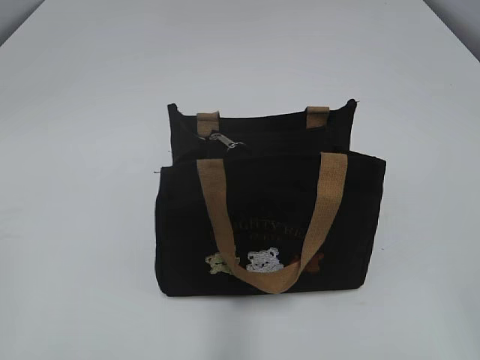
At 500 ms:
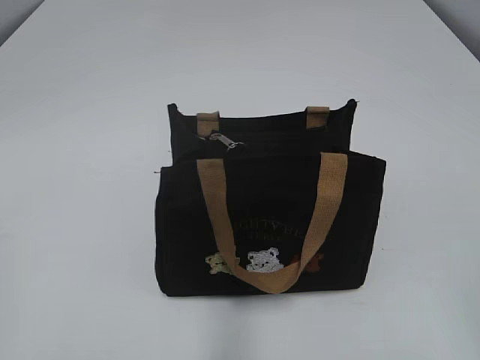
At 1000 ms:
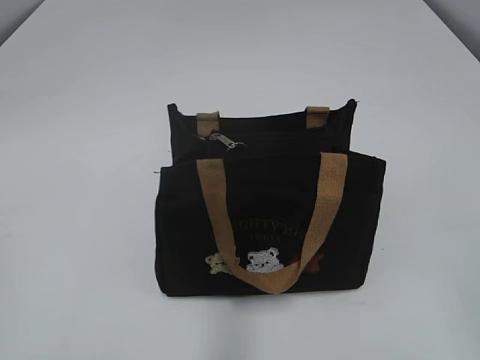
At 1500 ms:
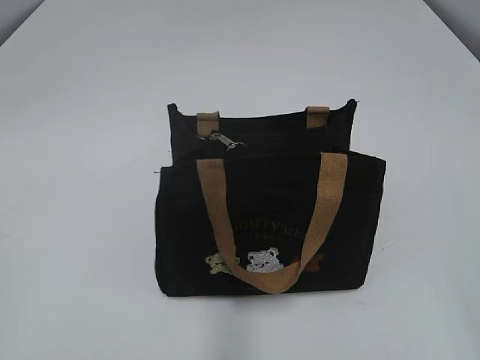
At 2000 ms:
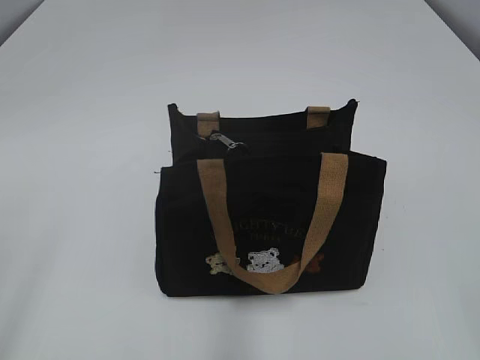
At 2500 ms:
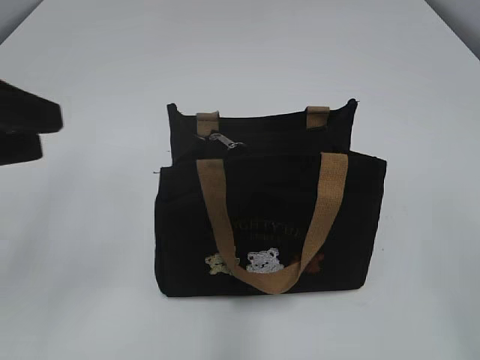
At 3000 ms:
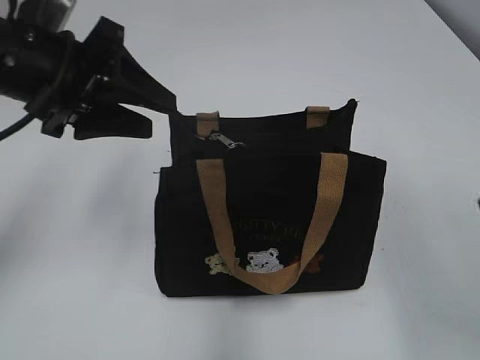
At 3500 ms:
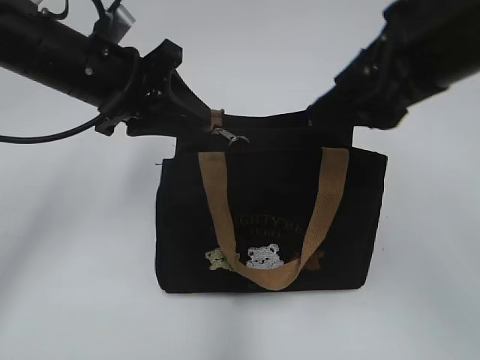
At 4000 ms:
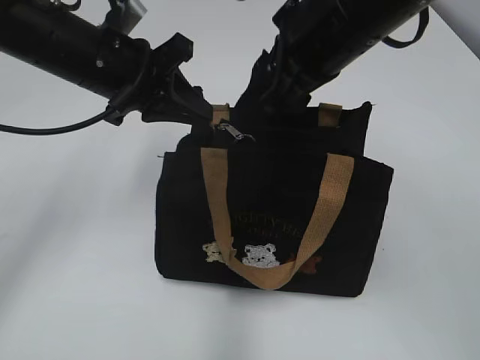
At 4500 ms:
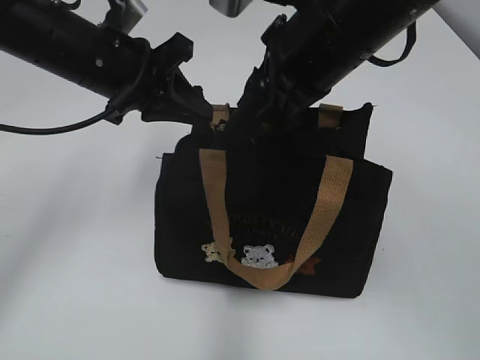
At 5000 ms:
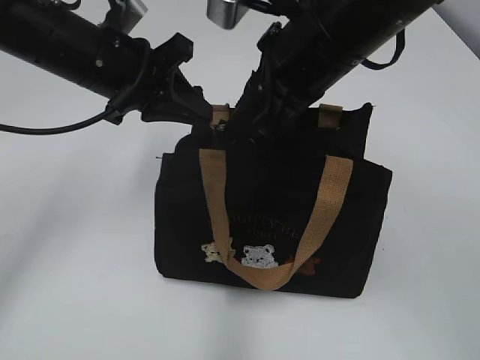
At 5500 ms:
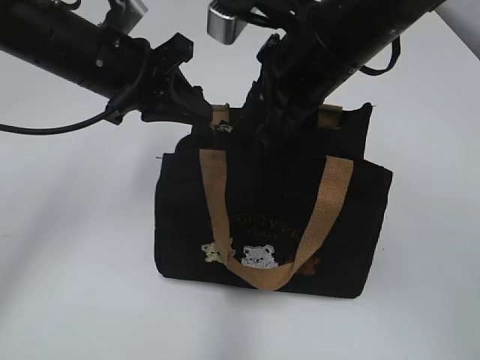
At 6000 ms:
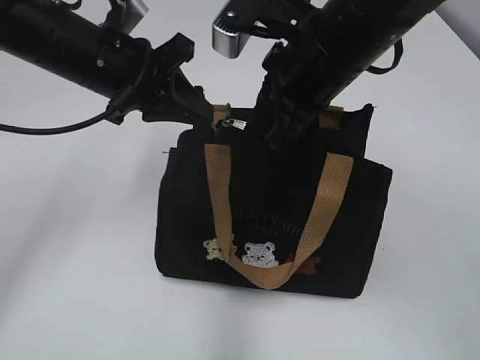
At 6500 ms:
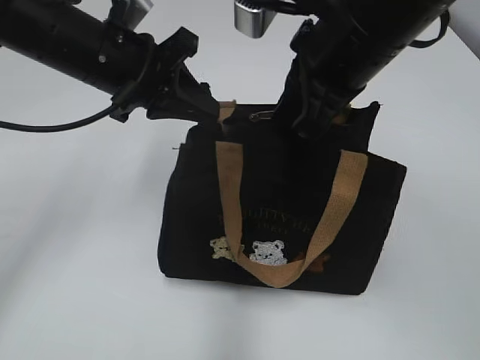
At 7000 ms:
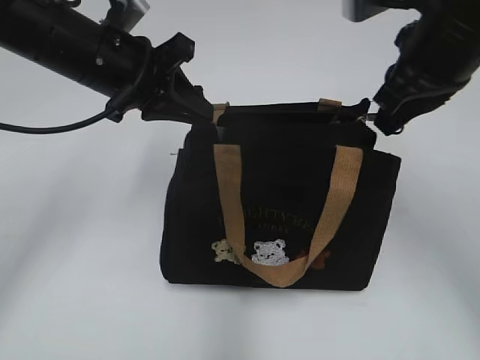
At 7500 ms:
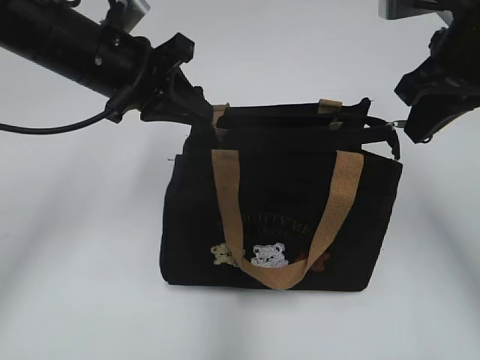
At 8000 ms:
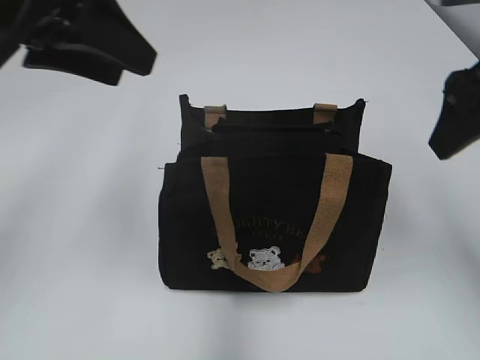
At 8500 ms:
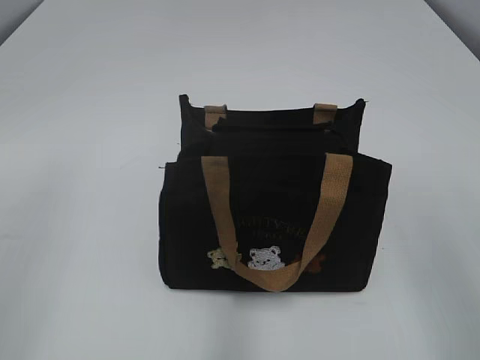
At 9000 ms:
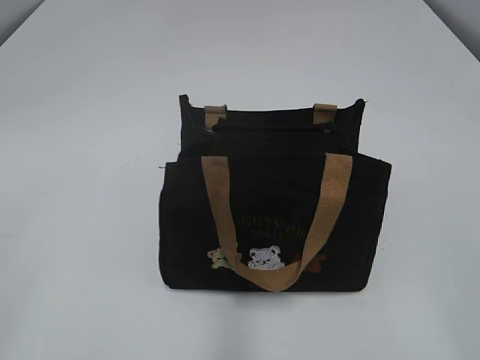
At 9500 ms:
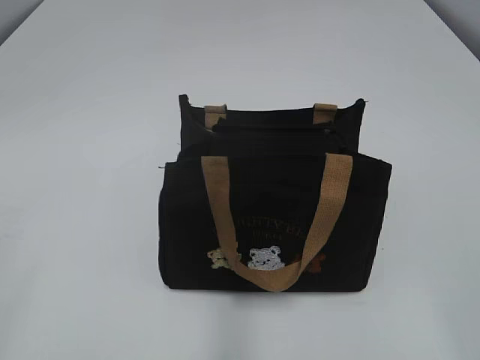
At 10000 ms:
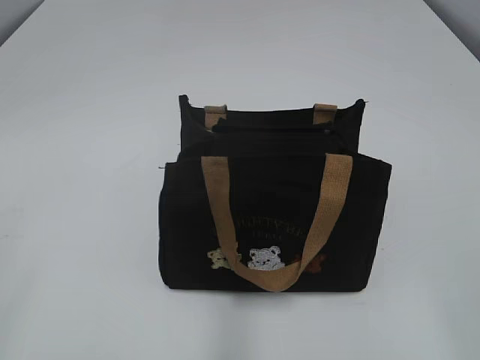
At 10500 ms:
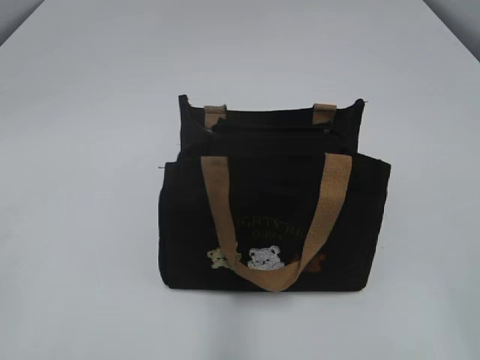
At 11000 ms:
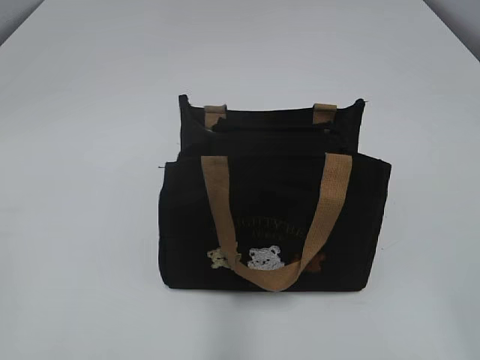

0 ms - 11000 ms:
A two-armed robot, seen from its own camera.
Step, 0 ms - 7500 ms: Pull open the zipper with your right hand.
2000 ms - 3500 ms: The right gripper heads forward and to the left, covering some 25 cm. The left gripper travels forward and to the right by about 35 cm.
3500 ms - 5500 ms: The right gripper moves to the left and forward, some 10 cm, while the left gripper closes its fingers.
5500 ms - 7500 ms: The right gripper heads to the right, covering approximately 15 cm, and closes its fingers.
7500 ms - 9000 ms: The right gripper goes approximately 30 cm backward, and opens. Meanwhile the left gripper heads backward and to the left, covering some 35 cm, and opens up.
